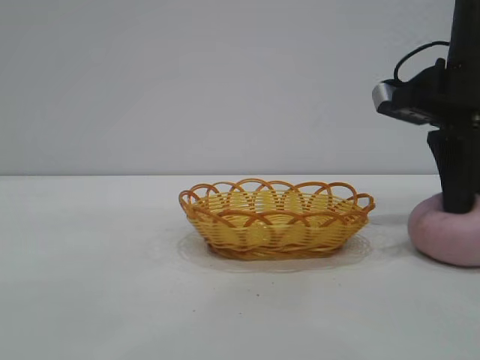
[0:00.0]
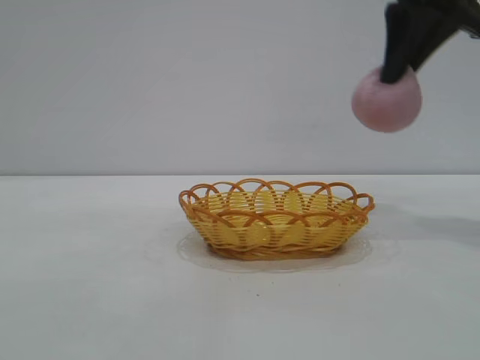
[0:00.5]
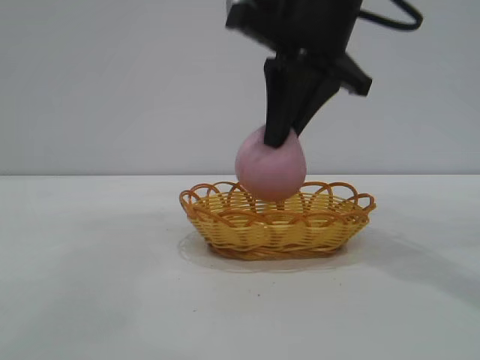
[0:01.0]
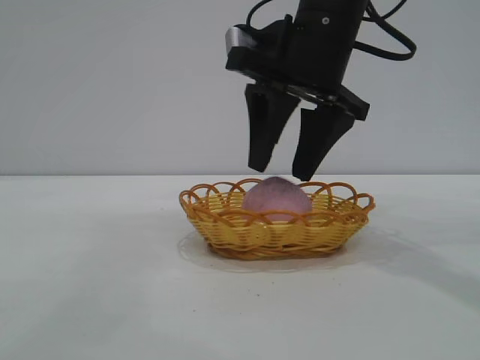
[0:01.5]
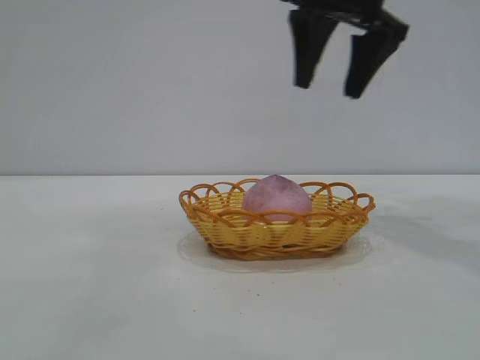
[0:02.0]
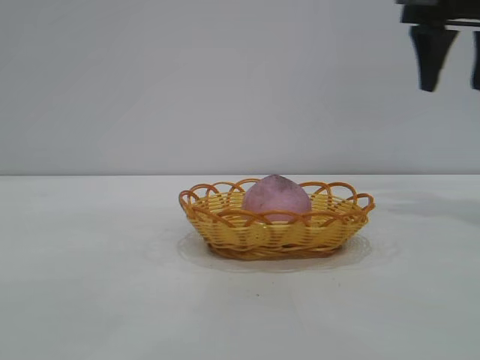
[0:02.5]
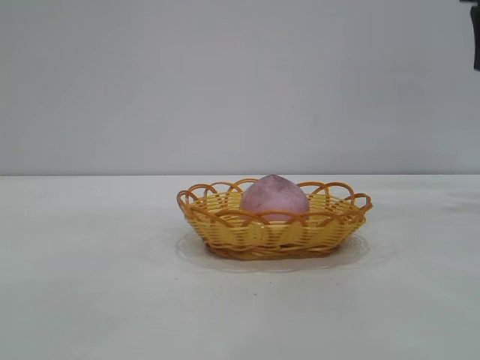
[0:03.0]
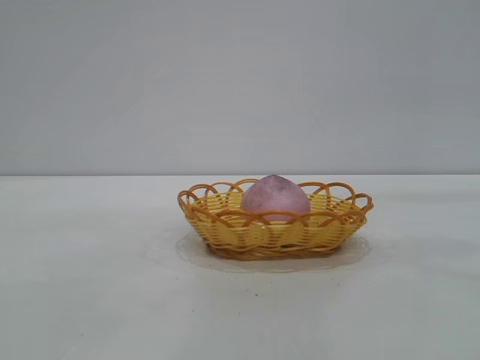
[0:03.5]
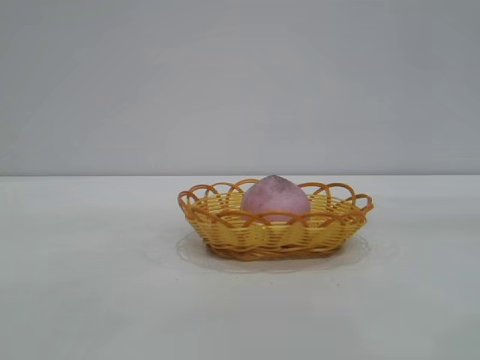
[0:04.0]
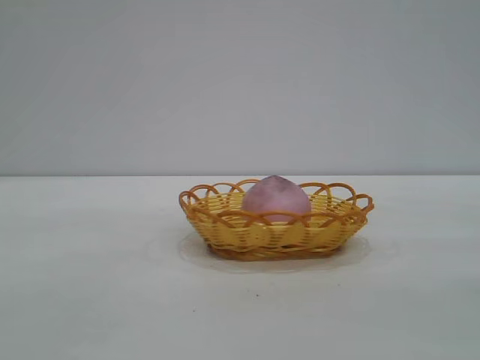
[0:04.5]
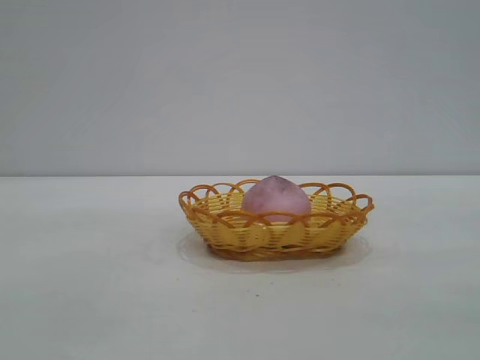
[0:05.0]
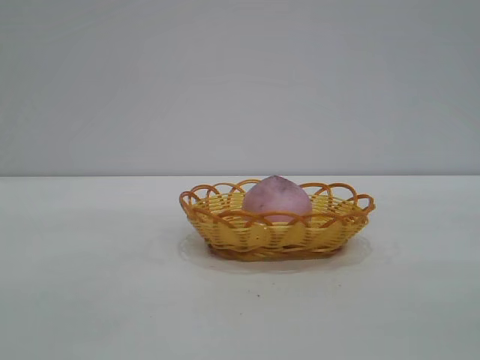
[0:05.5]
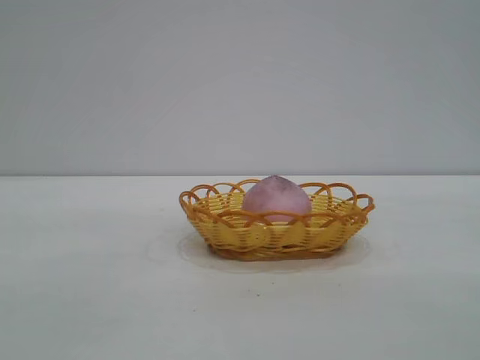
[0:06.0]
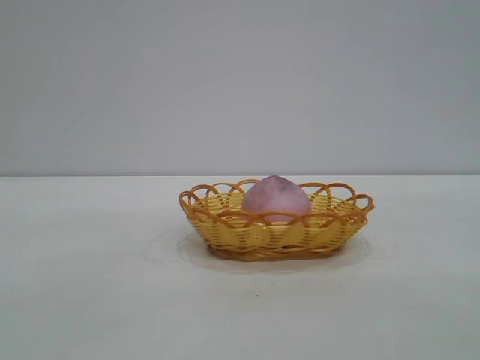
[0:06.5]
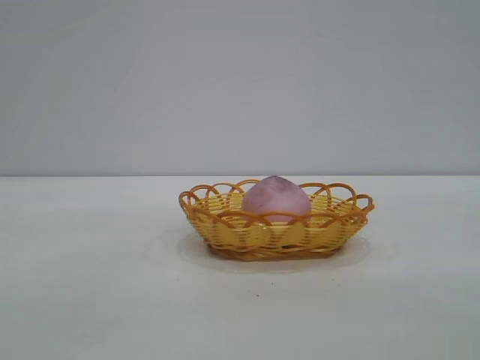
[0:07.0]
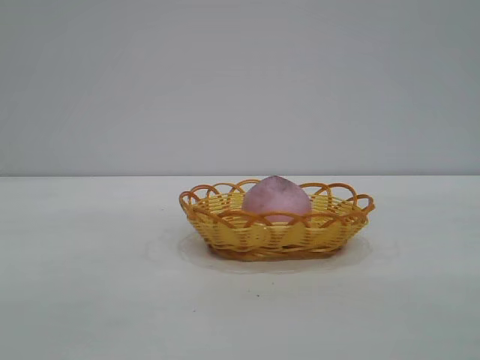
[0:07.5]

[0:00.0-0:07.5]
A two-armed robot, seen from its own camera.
Task of the whole recording: pick up the peach and put it into the basket.
Step, 0:00.5 to 0:01.5: place the peach into the basket.

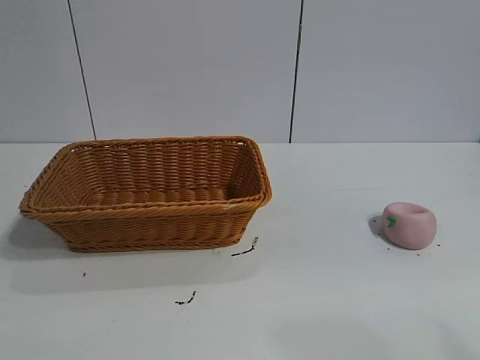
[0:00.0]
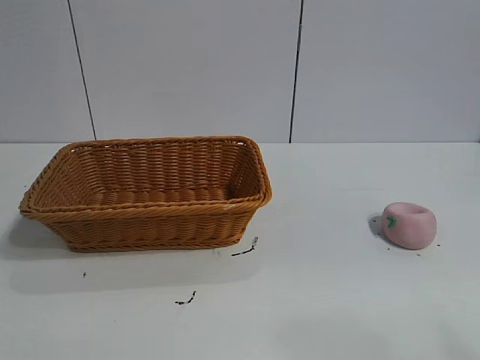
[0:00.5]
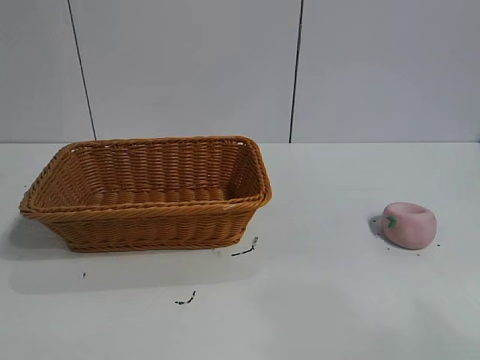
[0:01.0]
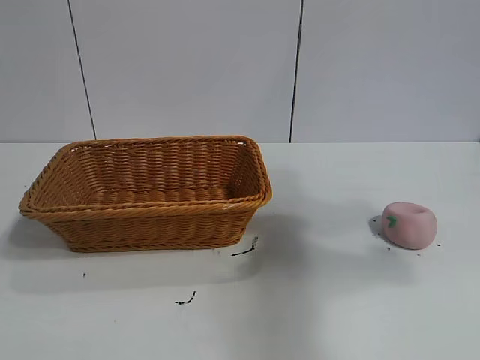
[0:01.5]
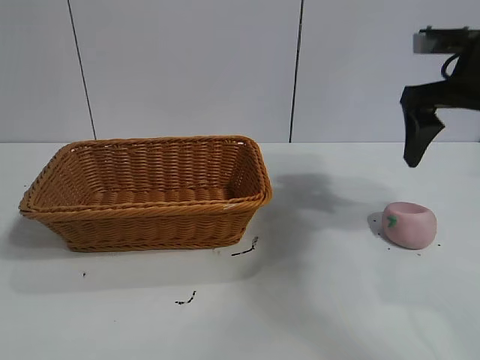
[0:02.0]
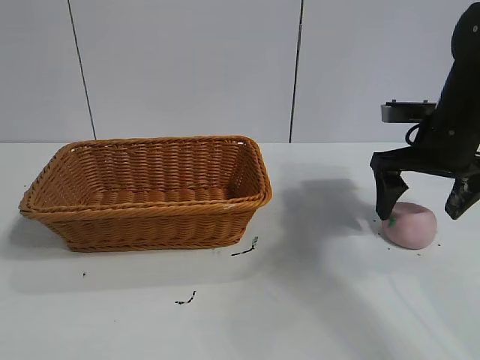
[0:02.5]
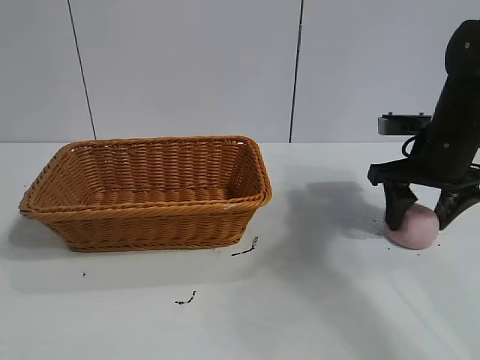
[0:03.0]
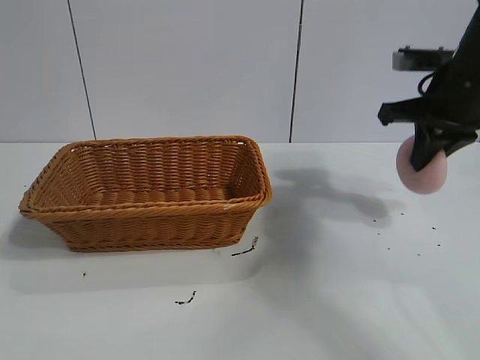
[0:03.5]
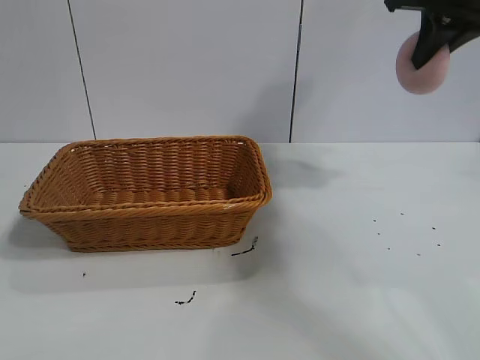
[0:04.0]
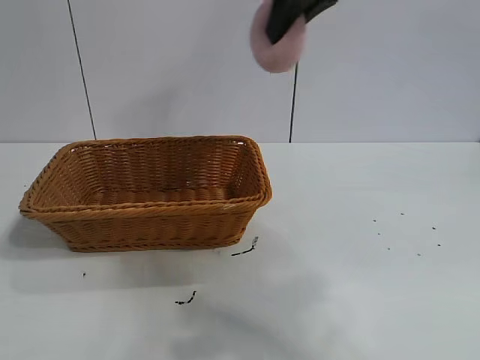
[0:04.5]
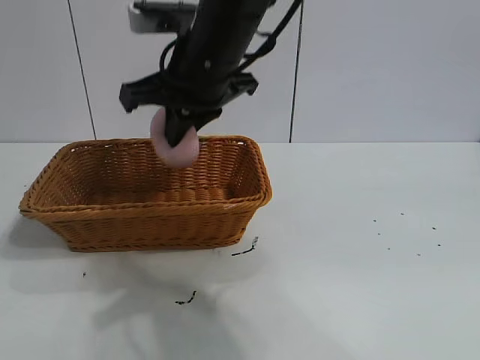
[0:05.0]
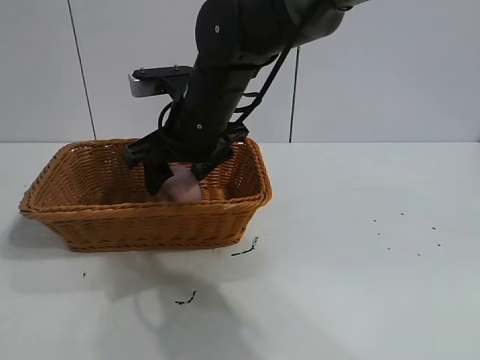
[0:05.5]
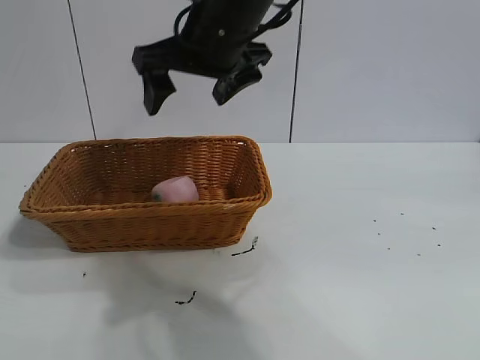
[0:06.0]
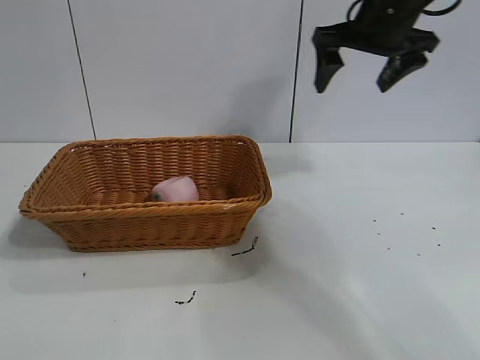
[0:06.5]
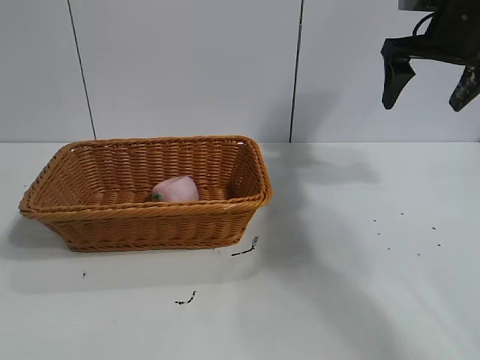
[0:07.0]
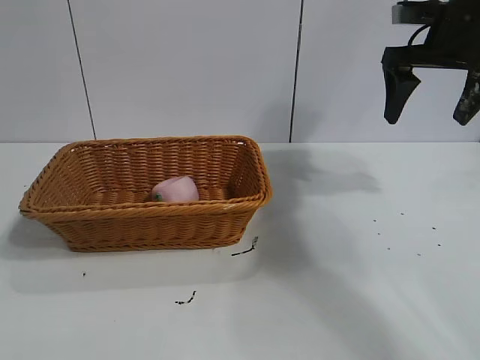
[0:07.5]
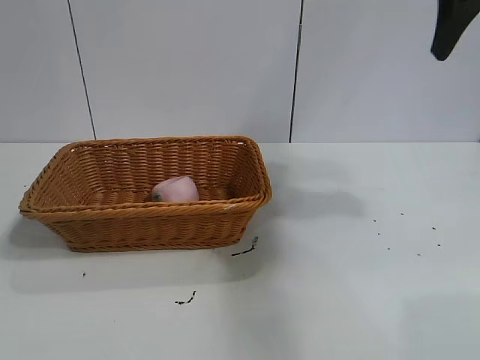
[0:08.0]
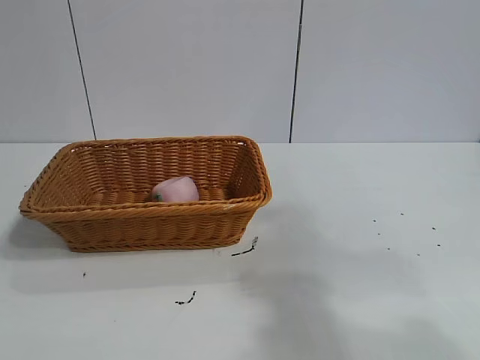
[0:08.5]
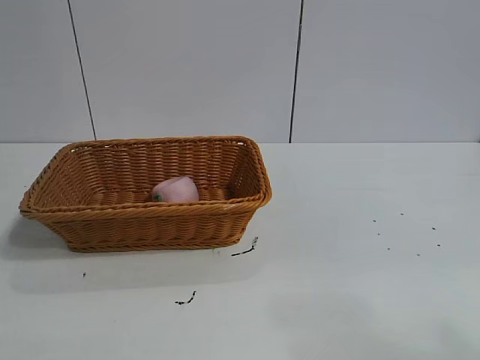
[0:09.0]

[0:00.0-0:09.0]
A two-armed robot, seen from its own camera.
Task of the whole recording: pick up the peach and put it into the basket.
Step, 0:01.0 to 0:03.0: Grasp the peach with right gripper.
Step, 0:03.5 to 0:05.5: Place the peach in the basket with right gripper.
